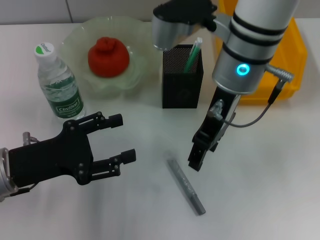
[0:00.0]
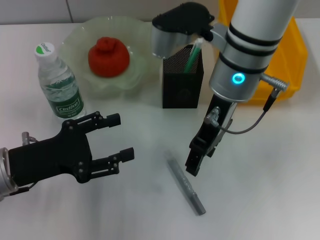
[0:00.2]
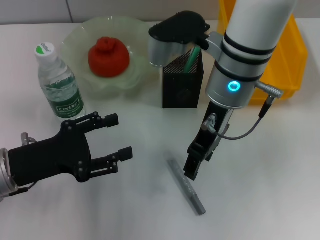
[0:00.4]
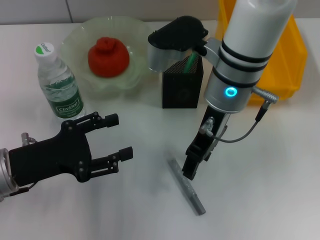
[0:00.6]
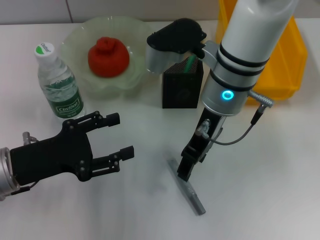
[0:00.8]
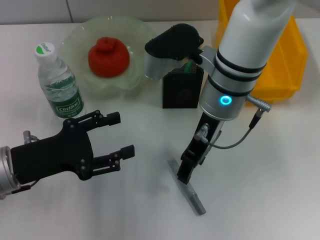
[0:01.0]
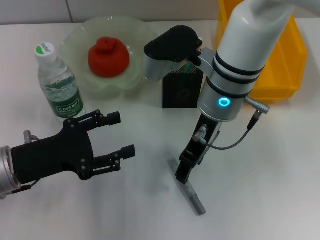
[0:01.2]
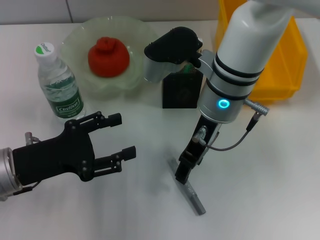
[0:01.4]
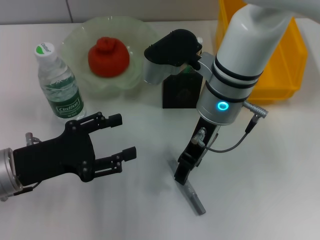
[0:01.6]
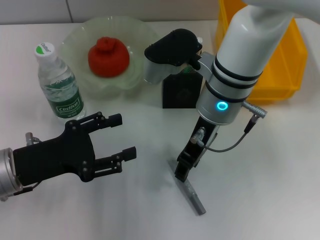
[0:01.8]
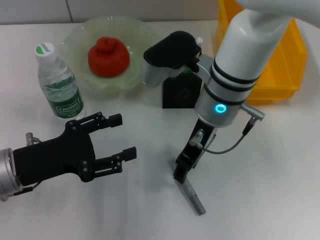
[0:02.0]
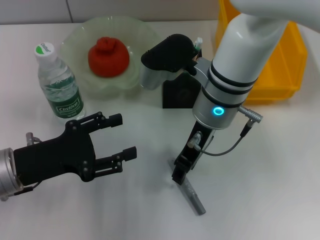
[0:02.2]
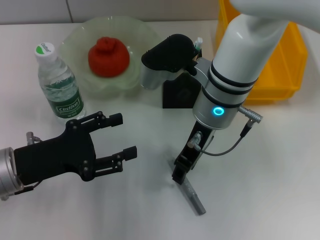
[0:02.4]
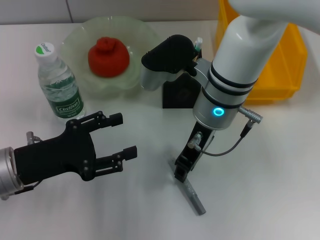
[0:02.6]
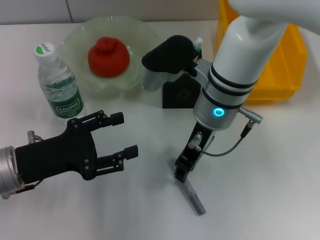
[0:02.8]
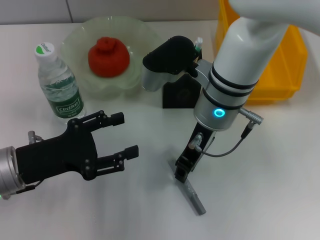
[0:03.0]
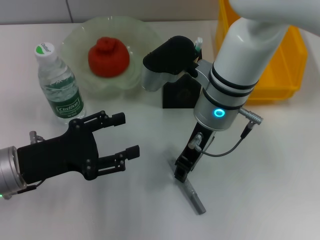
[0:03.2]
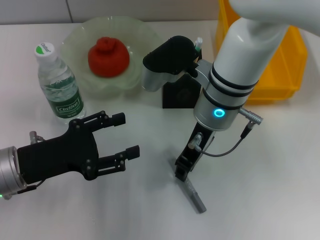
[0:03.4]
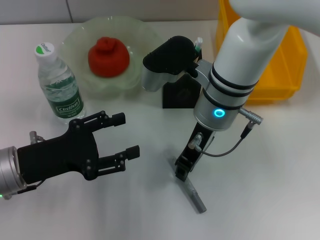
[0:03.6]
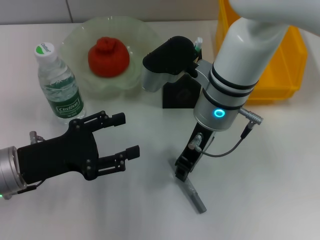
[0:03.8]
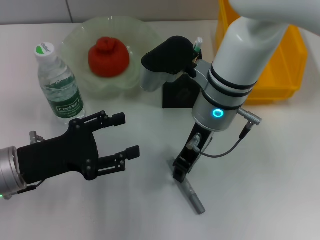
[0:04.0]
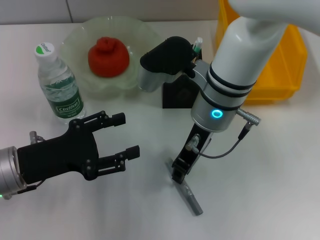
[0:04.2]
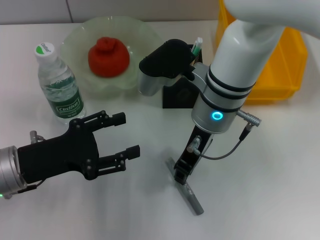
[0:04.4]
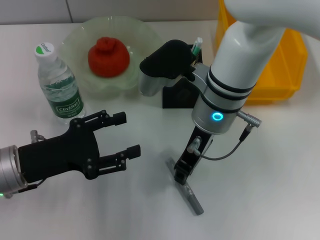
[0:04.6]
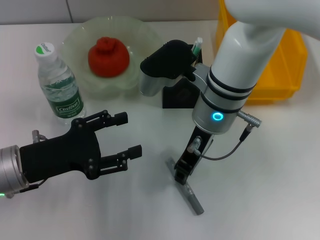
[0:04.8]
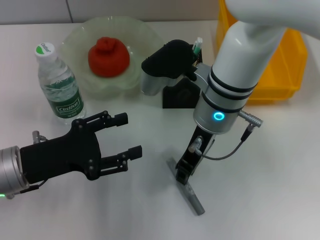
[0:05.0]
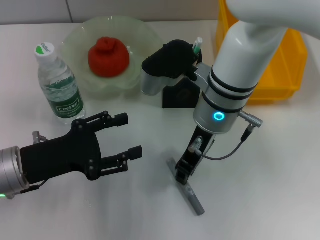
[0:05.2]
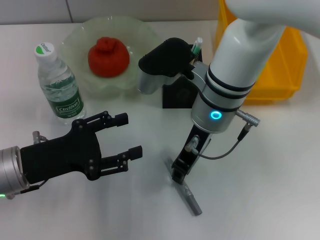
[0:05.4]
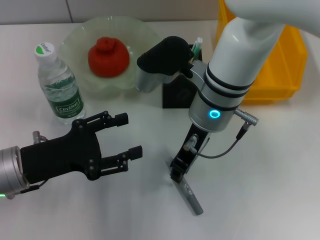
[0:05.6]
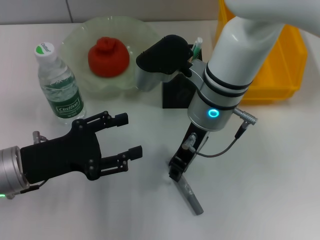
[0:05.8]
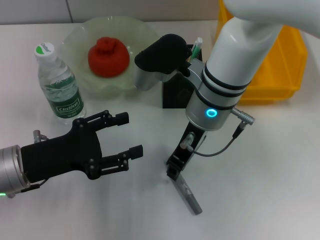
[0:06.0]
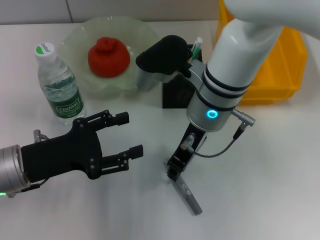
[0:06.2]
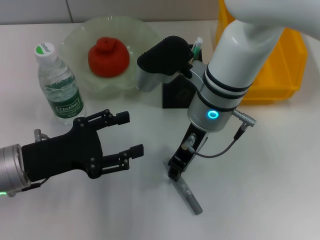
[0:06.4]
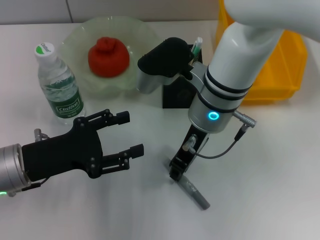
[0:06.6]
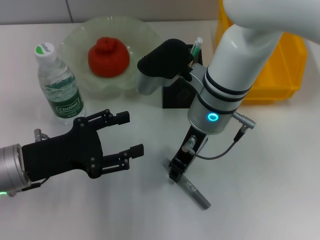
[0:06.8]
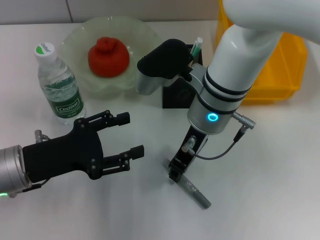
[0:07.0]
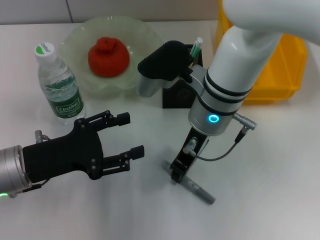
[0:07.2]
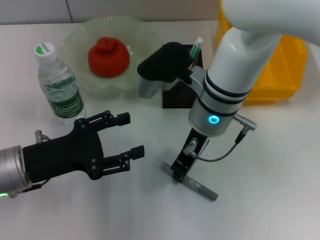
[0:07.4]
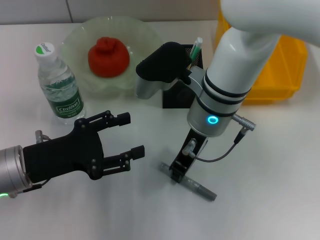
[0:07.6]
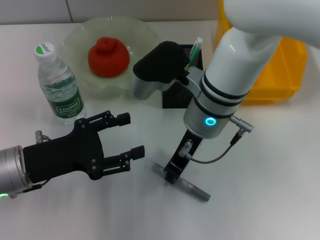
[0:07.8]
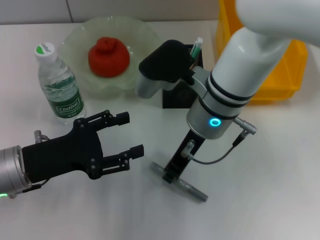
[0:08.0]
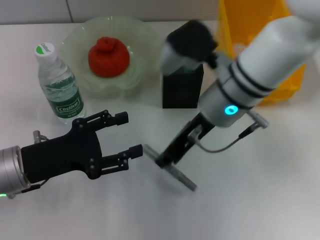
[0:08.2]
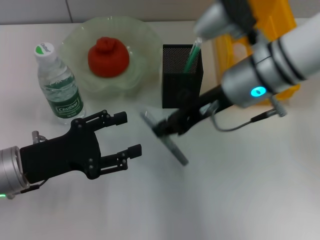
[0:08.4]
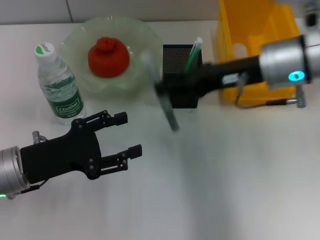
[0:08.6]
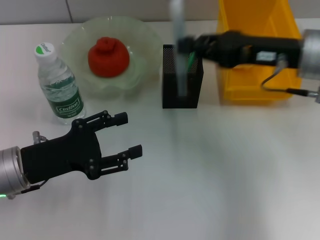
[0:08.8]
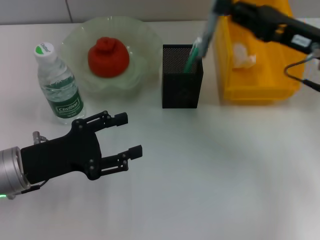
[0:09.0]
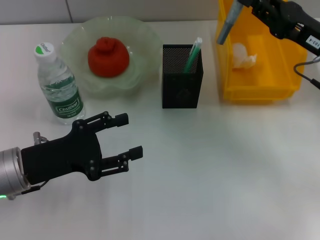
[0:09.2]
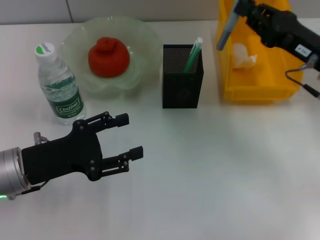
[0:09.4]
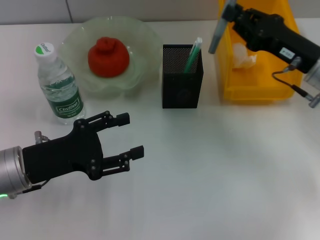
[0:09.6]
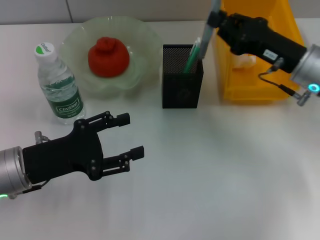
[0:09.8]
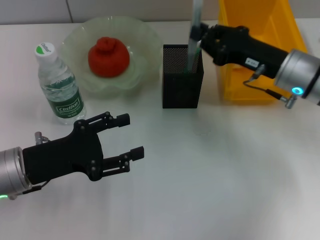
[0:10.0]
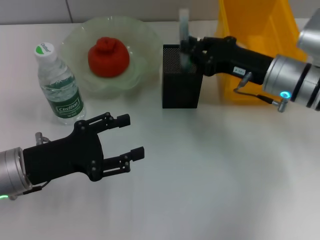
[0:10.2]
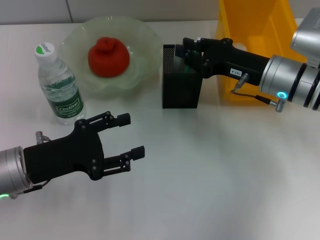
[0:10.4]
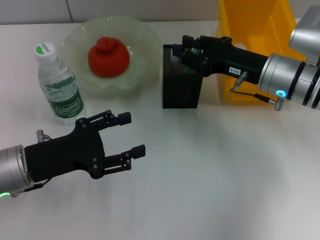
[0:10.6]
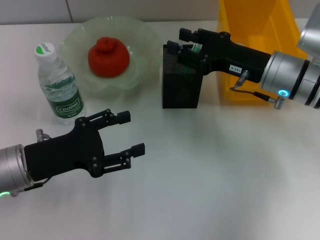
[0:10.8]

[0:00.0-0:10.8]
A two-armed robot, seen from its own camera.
Step, 0:00.0 to 0:07.6: Grab the gray glue with the right hand.
Step, 0:07.8 to 0:10.6: Place the gray glue into the pen holder with the right hand.
0:00.0 to 0:01.6: The right gripper is displaced downward by roughly 5 cm.
0:01.6 to 0:03.0: Both grippers stay put.
0:03.0 to 0:06.2: Neither gripper changes place.
0:06.2 to 0:07.8: Both grippers stay about where they are.
0:07.8 to 0:09.2: The right gripper heads to the right, covering roughly 20 cm.
0:09.2 to 0:10.8: The right gripper moves to the left, some 5 cm, and opens its fingers.

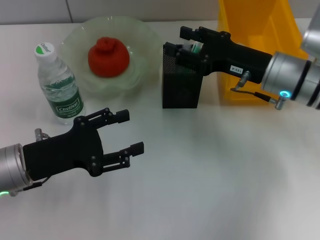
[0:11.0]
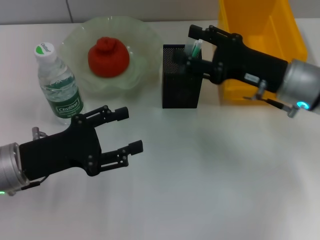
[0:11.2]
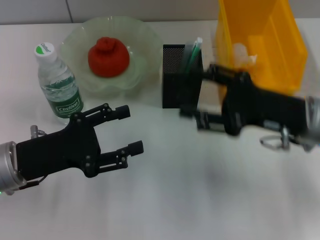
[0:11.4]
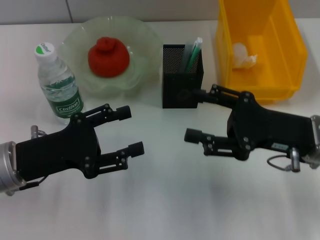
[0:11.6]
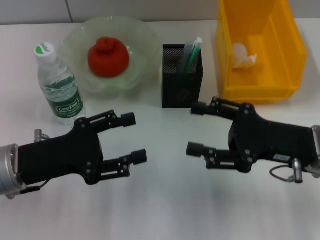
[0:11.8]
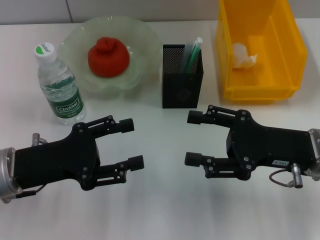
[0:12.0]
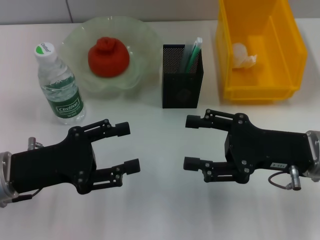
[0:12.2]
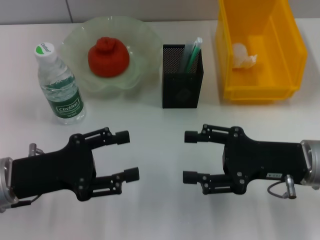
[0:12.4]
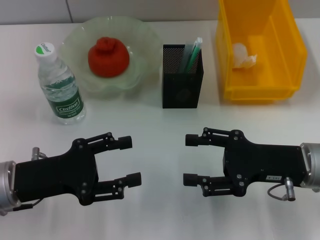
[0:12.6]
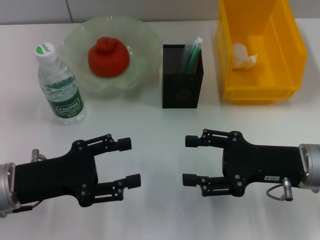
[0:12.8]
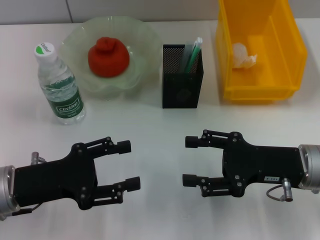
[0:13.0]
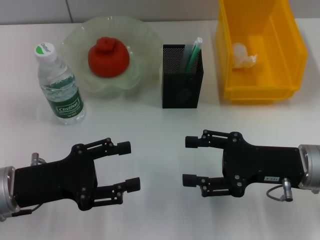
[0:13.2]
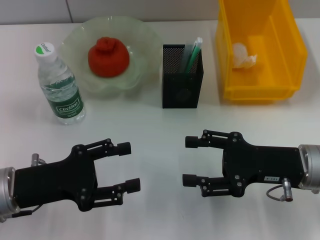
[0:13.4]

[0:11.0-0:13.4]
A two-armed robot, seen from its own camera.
0:11.0 to 0:12.2: The right gripper heads backward, covering roughly 10 cm, and opens its fingers.
0:12.2 to 0:13.4: The grippers make only small movements.
